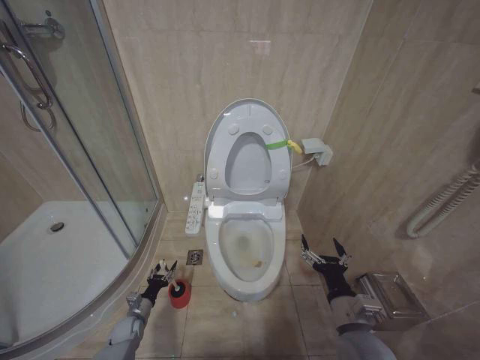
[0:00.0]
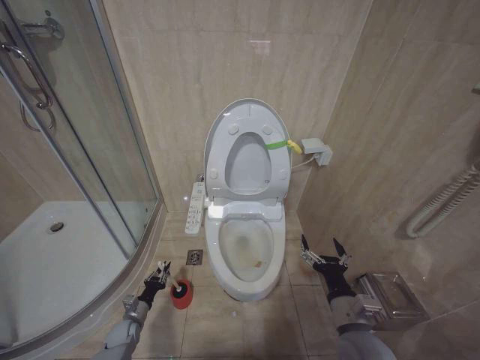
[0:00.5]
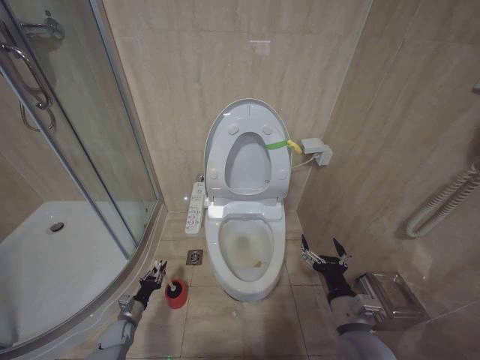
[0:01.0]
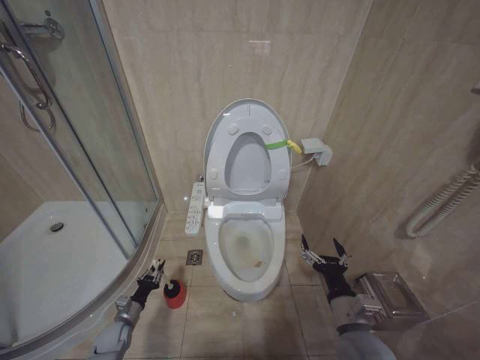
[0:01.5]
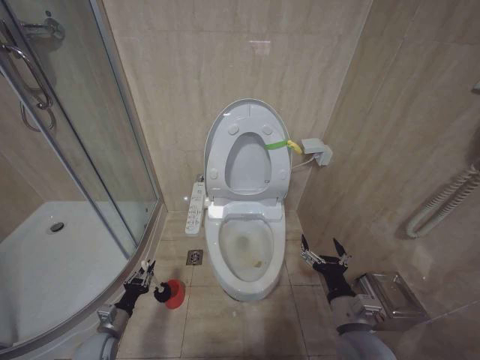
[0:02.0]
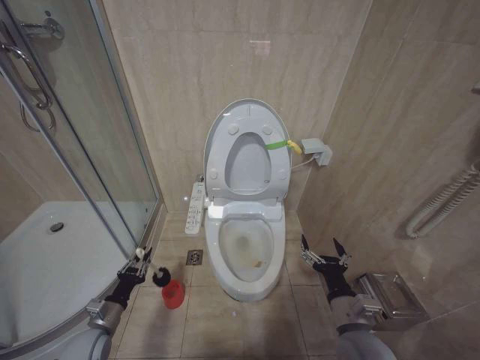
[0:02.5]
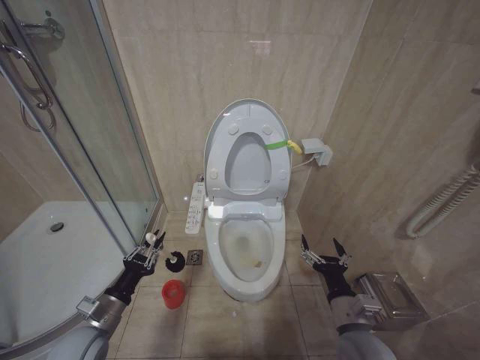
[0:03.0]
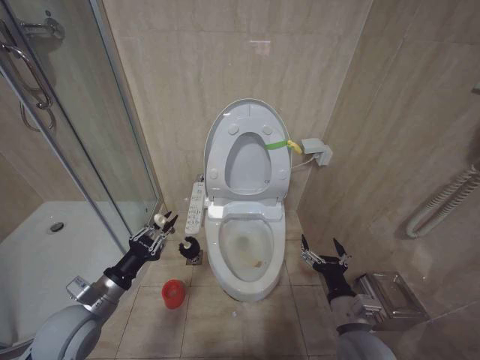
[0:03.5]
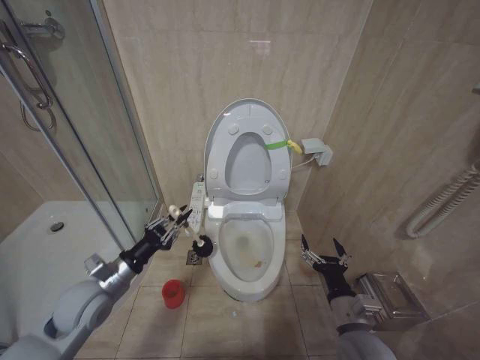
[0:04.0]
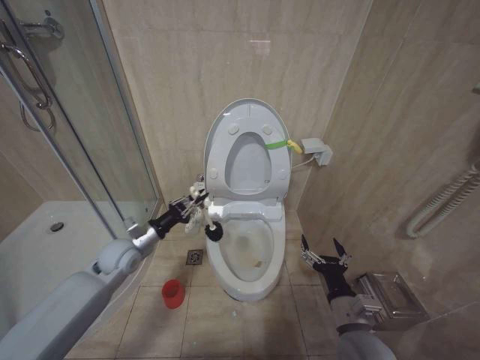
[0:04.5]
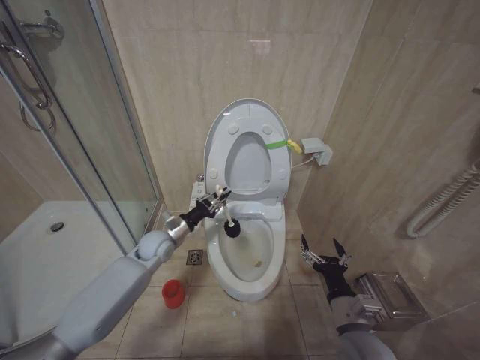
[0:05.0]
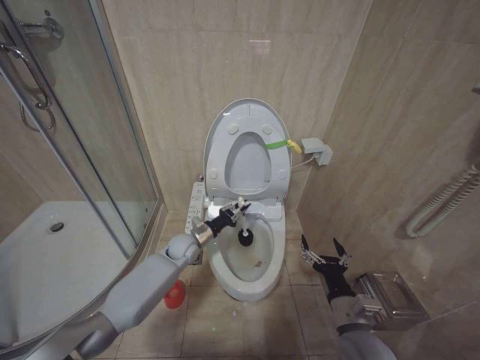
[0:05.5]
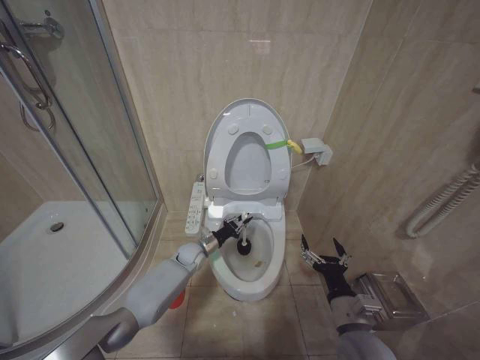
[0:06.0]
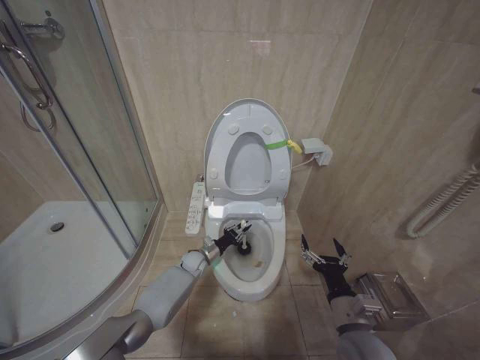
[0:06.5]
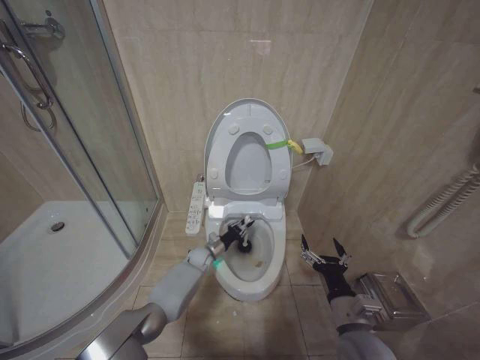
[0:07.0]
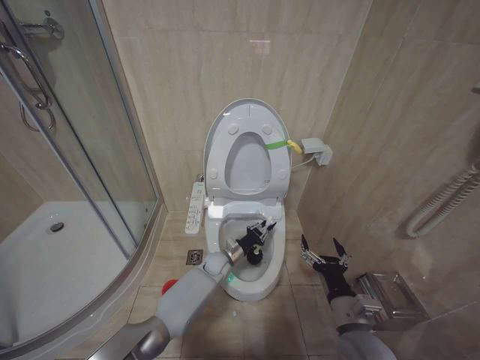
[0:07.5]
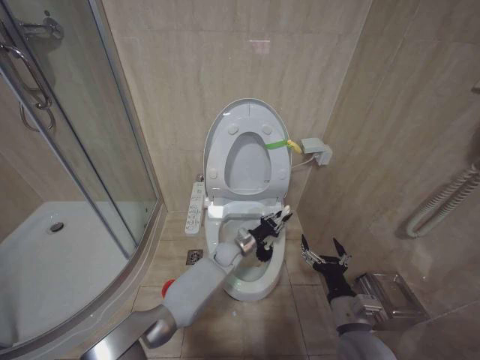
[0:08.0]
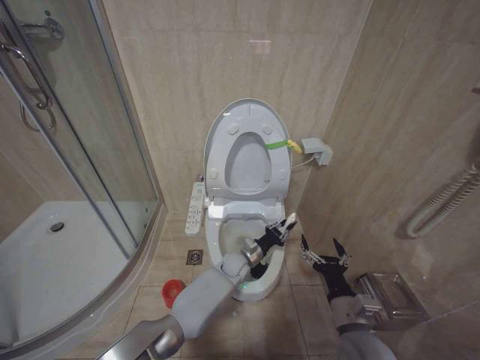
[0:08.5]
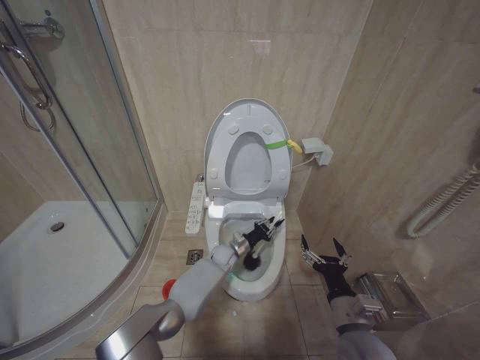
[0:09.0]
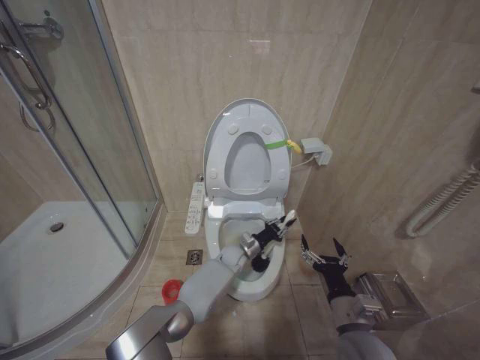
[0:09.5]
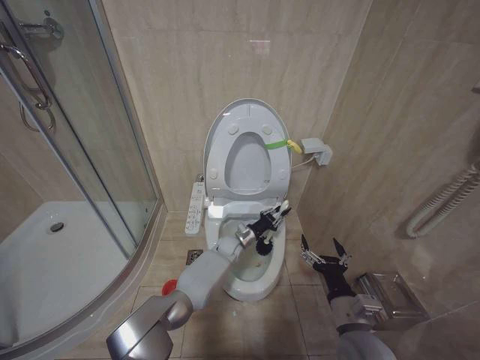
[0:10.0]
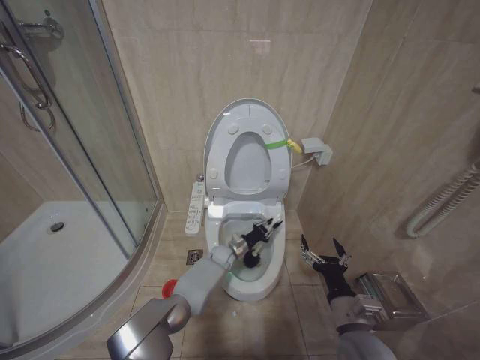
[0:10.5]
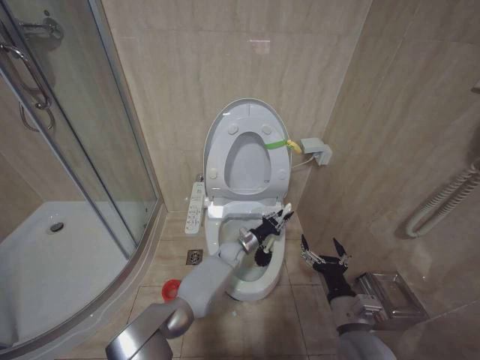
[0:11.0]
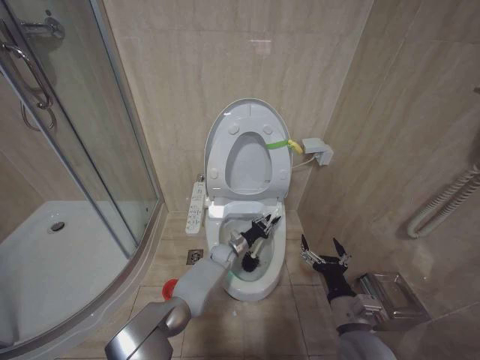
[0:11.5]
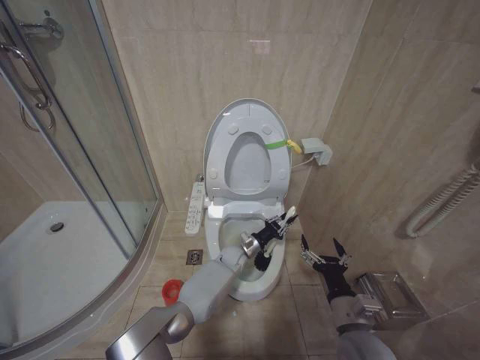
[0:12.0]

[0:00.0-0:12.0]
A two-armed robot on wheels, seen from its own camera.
Task of the whole recording: Open the toilet lid, clean the toilet bowl with a toilet brush, close the toilet lid, and flush.
0.0 to 2.0 s: The left gripper travels upward and backward by approximately 10 cm, and closes up.
2.0 to 4.0 s: The left gripper heads upward, covering approximately 25 cm.
4.0 to 6.0 s: The left gripper is displaced forward, to the right and downward by about 30 cm.
6.0 to 8.0 s: The left gripper heads to the right, covering about 10 cm.
8.0 to 10.0 s: The left gripper moves roughly 5 cm.
10.0 to 12.0 s: There are only small adjustments of the grippers.

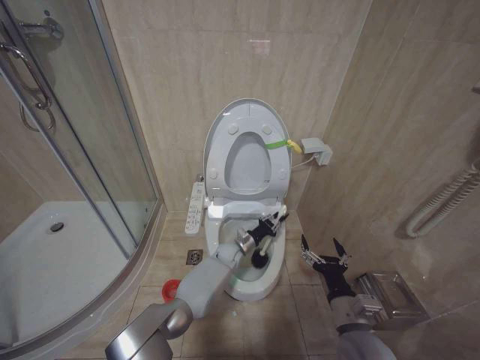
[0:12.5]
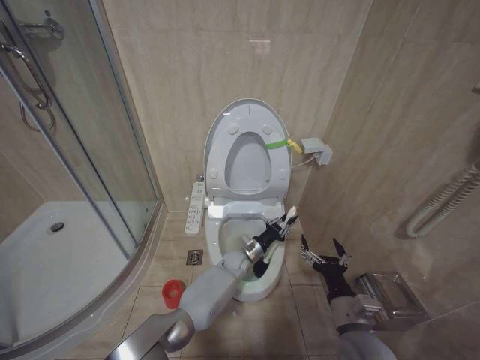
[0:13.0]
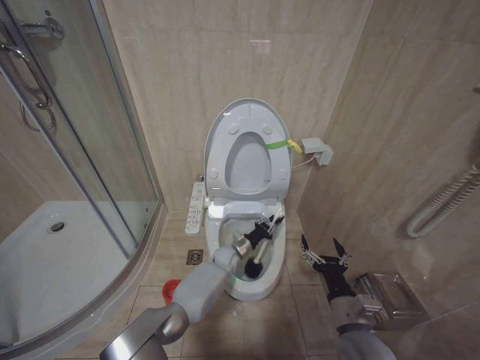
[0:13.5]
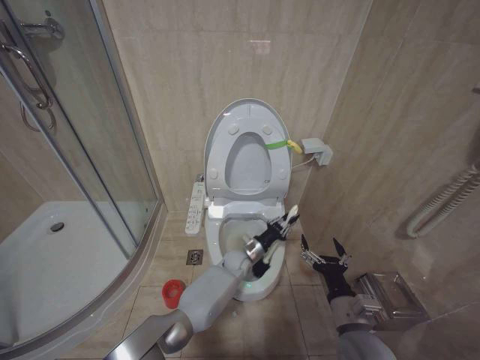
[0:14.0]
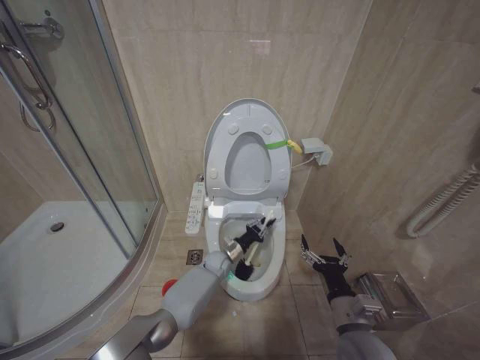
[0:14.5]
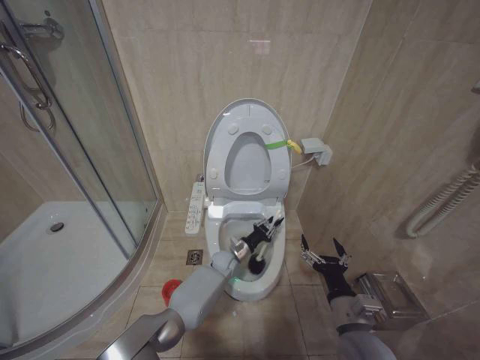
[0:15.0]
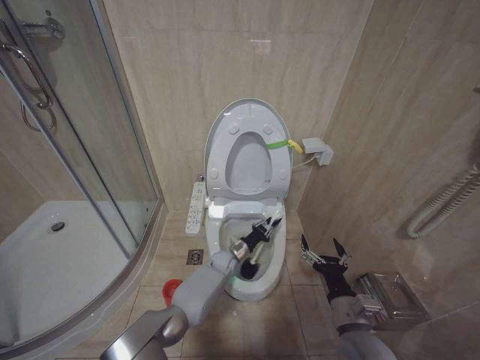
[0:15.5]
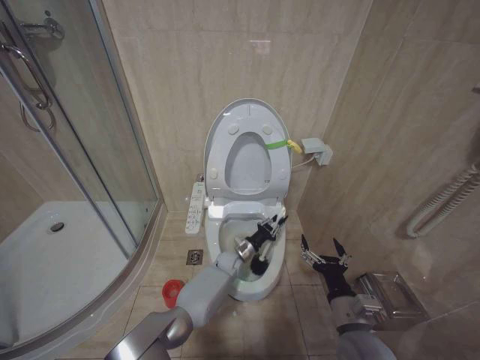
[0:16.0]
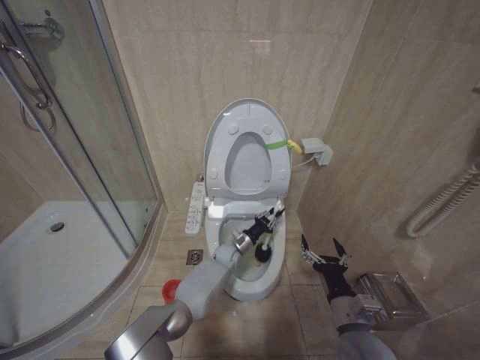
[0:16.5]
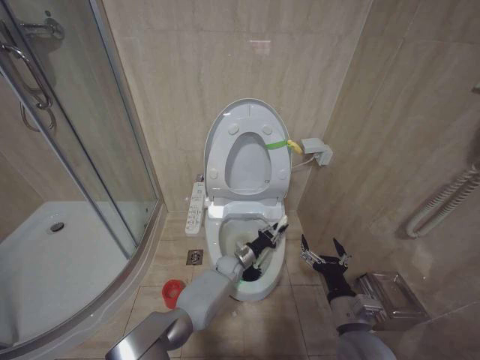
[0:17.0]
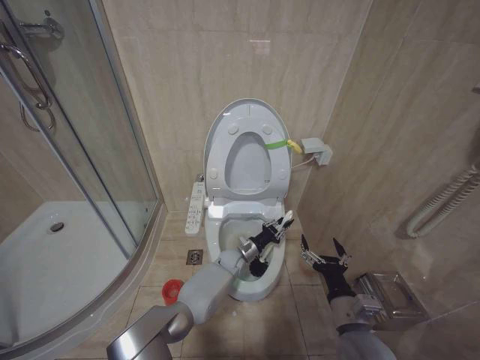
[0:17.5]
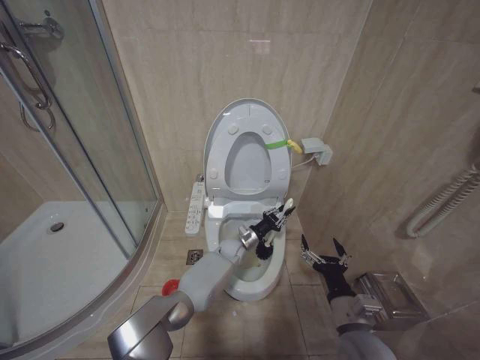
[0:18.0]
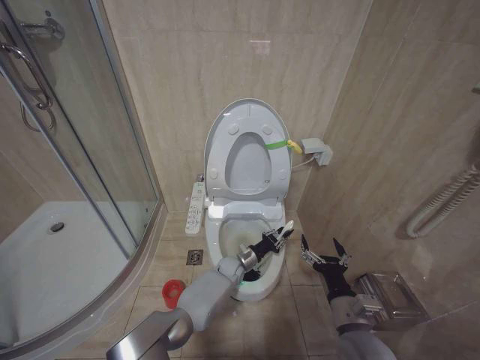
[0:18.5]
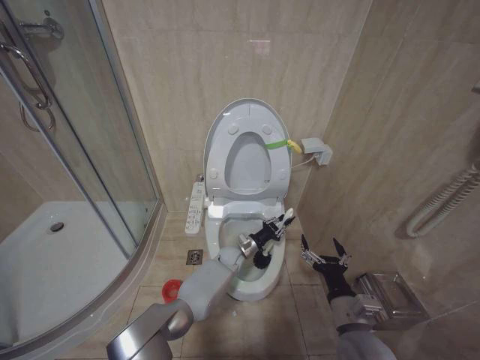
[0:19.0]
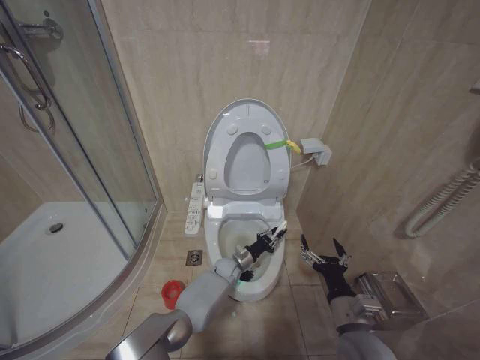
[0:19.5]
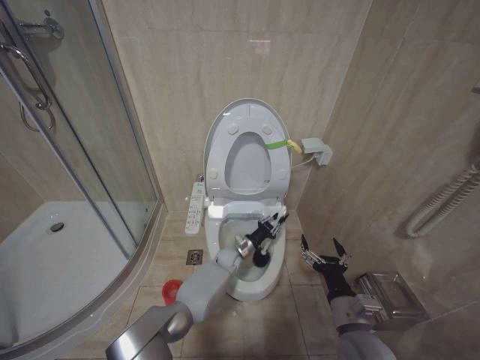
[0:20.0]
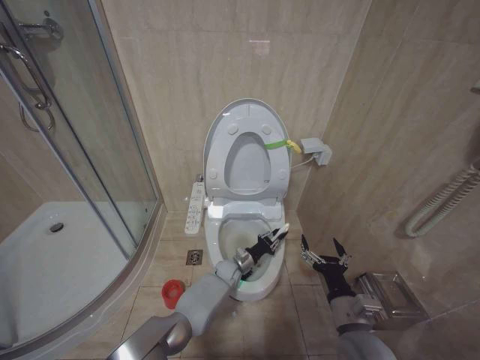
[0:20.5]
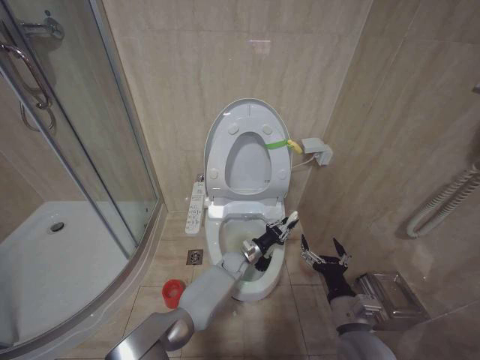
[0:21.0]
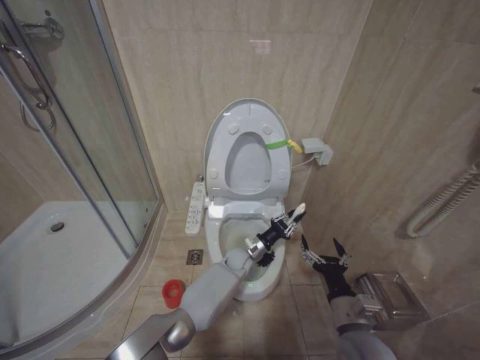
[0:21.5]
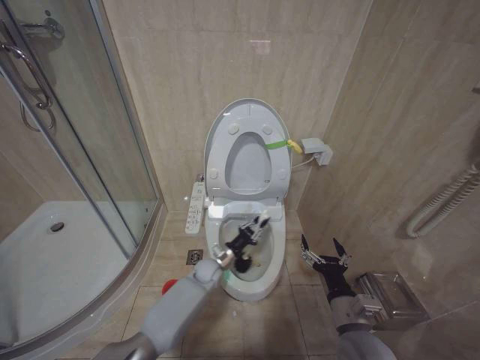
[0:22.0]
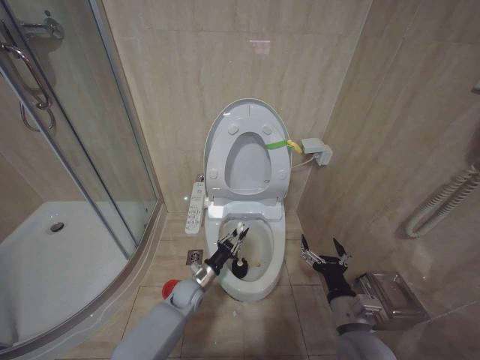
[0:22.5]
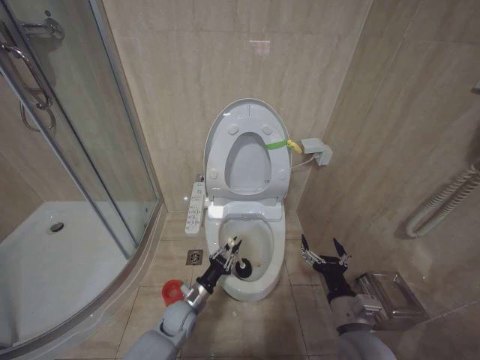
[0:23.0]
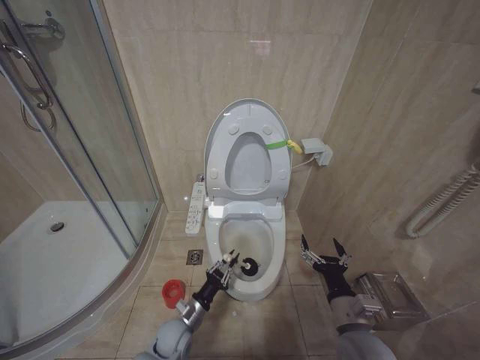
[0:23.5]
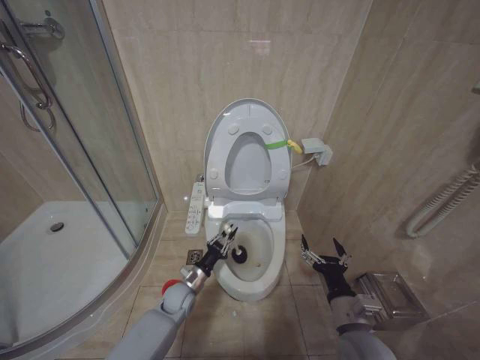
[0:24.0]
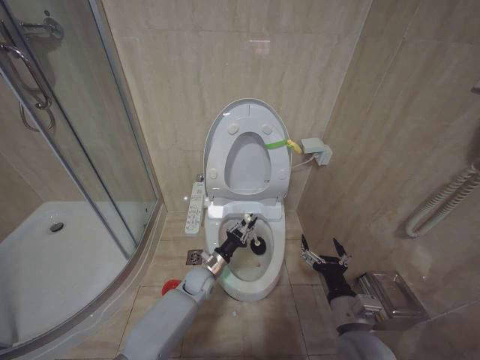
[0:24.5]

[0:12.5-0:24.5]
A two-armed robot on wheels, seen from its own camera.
Task of the whole recording: Open the toilet lid, clean the toilet bowl with a toilet brush, close the toilet lid, and flush.
12.5 to 14.5 s: The left gripper moves some 5 cm.
14.5 to 16.5 s: The grippers make only small movements.
16.5 to 20.5 s: The grippers make only small movements.
20.5 to 22.5 s: The left gripper goes roughly 15 cm to the left and backward.
22.5 to 24.5 s: The left gripper travels backward and back again, about 10 cm each way.

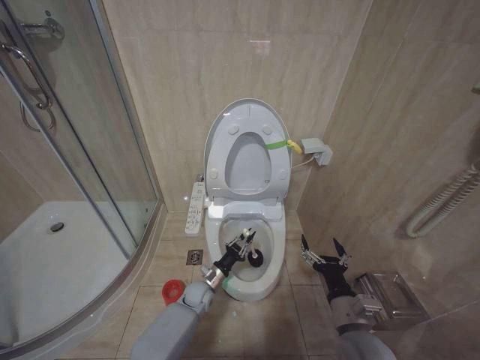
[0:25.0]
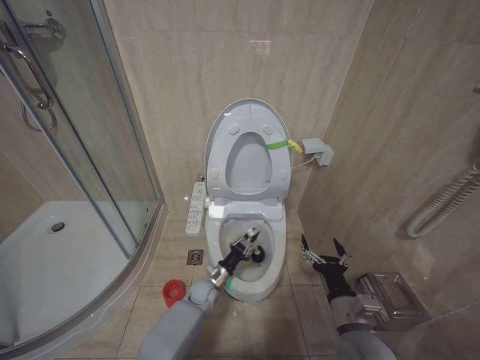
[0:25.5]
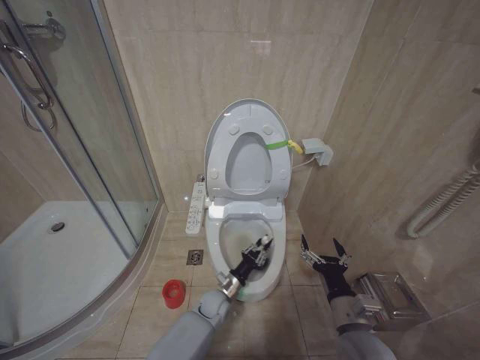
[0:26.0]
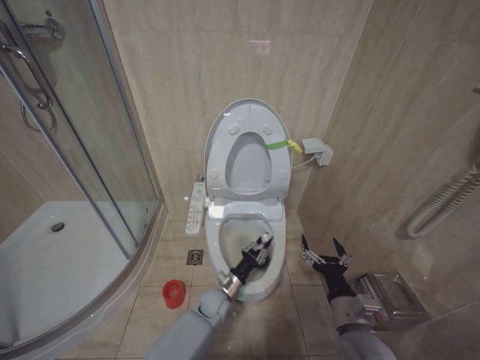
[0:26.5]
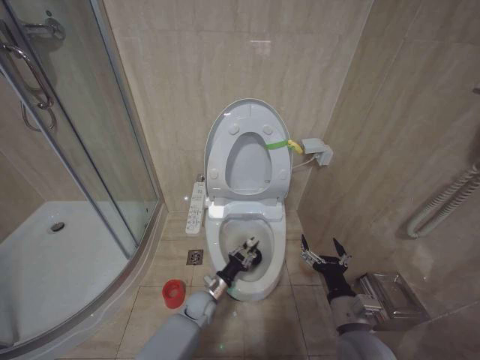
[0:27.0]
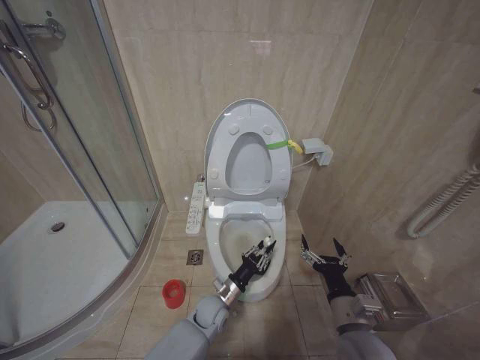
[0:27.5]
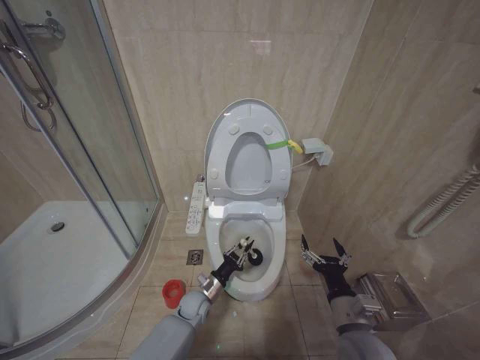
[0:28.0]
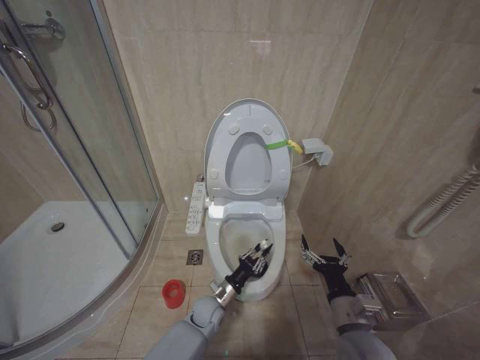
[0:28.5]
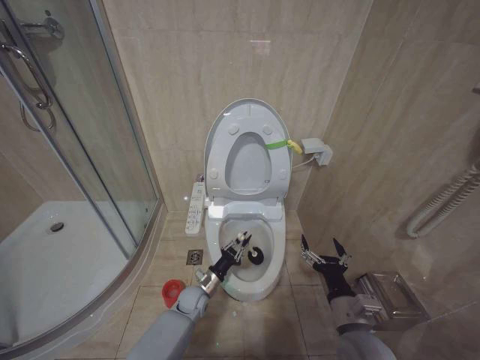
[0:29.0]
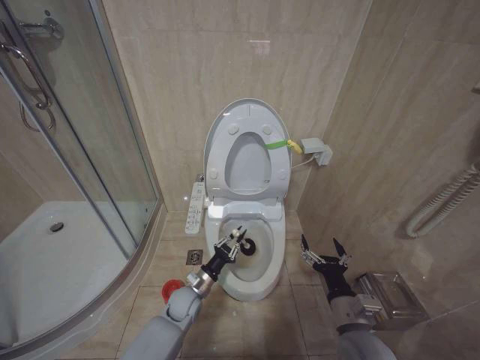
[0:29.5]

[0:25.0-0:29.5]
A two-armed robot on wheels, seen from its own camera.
Task of the whole recording: Open the toilet lid, clean the toilet bowl with a toilet brush, close the toilet lid, and flush.
27.0 to 29.5 s: The left gripper goes left and right, roughly 5 cm each way, reversing 2 times.
